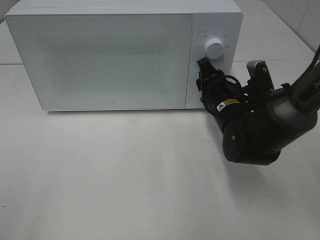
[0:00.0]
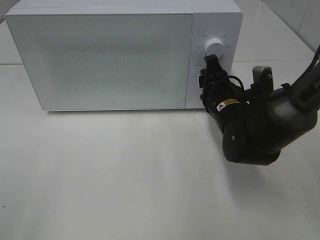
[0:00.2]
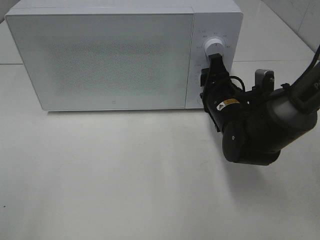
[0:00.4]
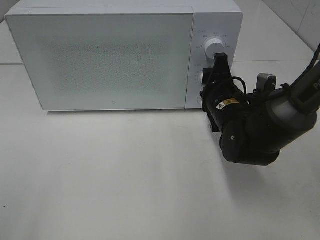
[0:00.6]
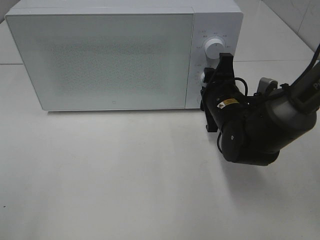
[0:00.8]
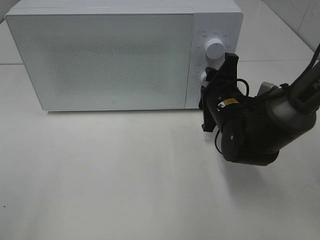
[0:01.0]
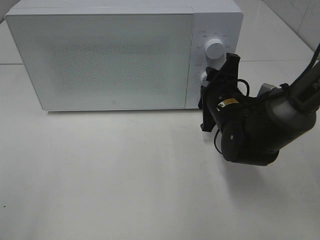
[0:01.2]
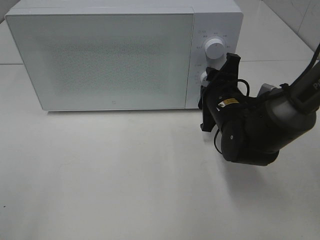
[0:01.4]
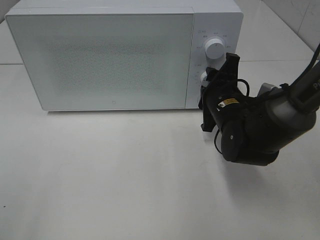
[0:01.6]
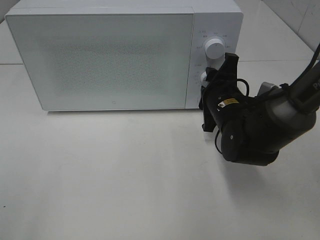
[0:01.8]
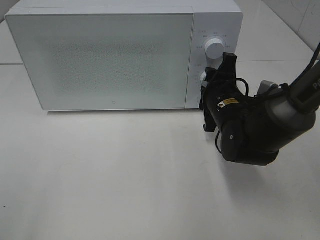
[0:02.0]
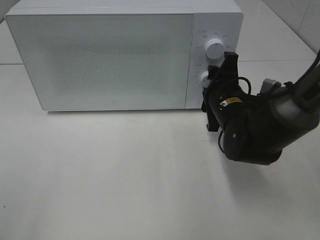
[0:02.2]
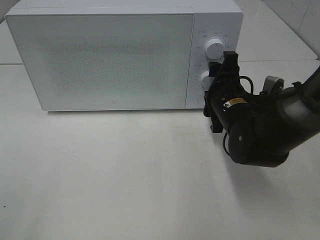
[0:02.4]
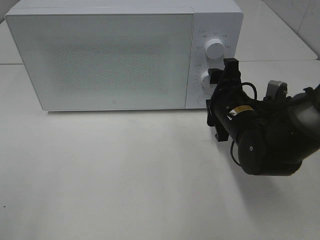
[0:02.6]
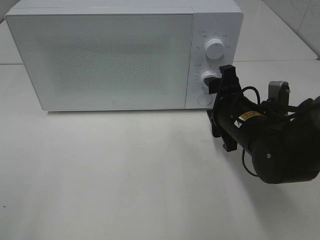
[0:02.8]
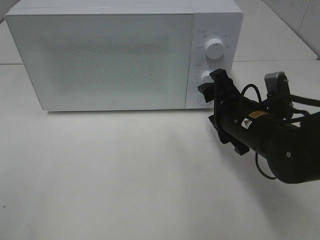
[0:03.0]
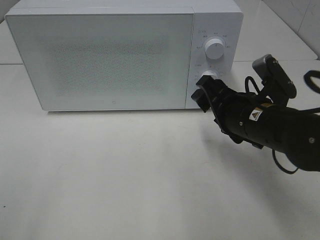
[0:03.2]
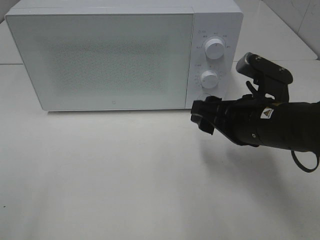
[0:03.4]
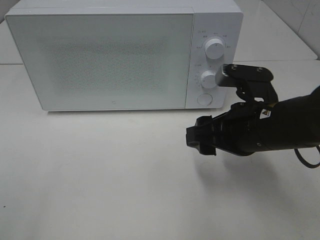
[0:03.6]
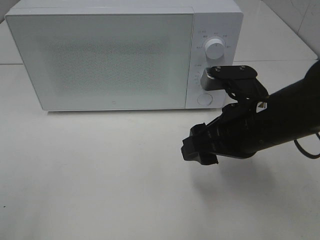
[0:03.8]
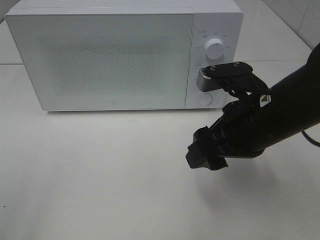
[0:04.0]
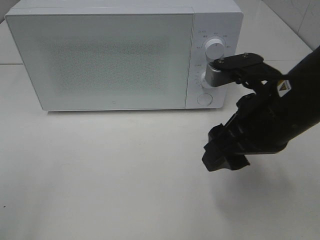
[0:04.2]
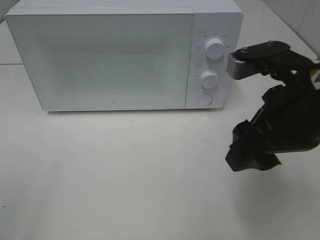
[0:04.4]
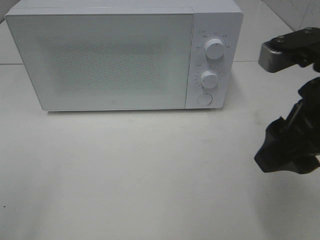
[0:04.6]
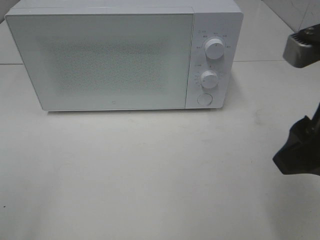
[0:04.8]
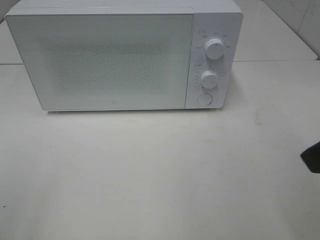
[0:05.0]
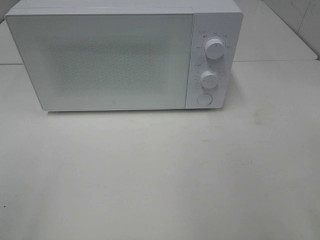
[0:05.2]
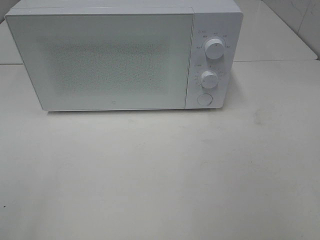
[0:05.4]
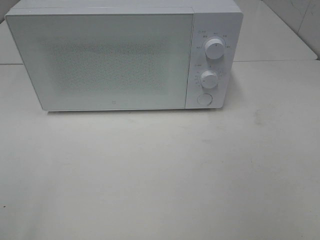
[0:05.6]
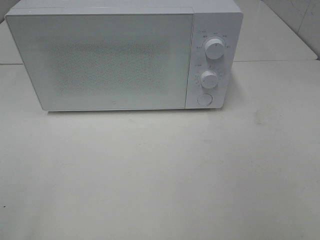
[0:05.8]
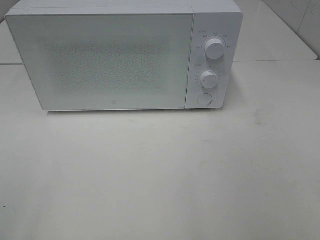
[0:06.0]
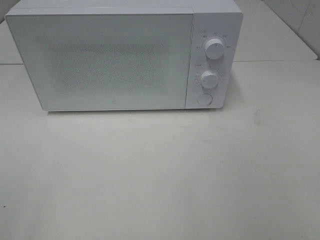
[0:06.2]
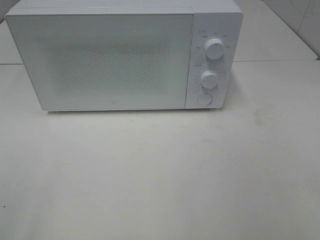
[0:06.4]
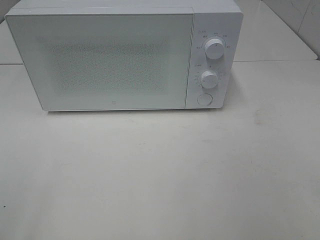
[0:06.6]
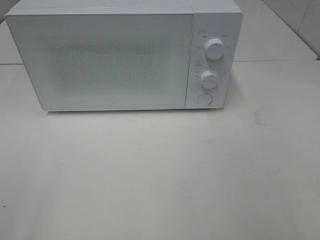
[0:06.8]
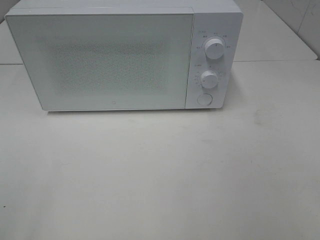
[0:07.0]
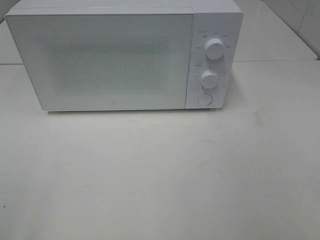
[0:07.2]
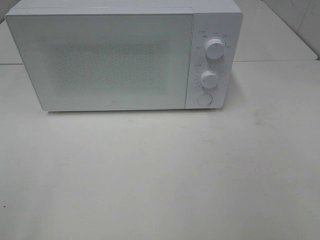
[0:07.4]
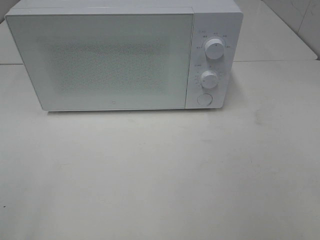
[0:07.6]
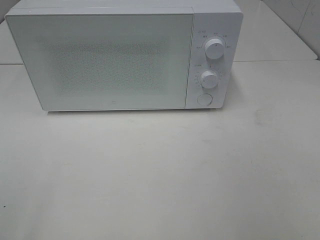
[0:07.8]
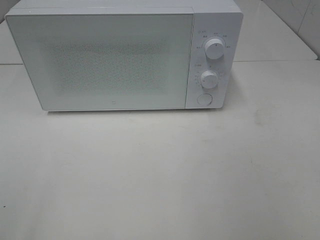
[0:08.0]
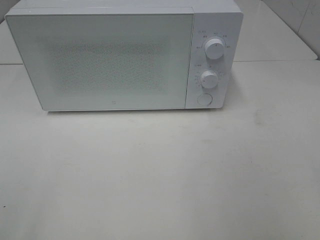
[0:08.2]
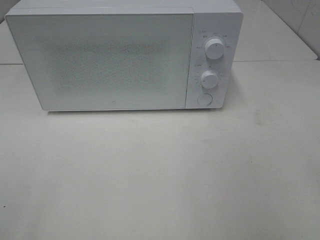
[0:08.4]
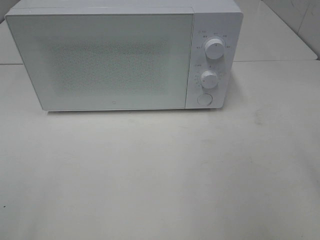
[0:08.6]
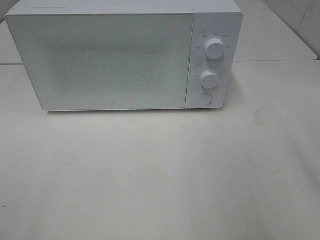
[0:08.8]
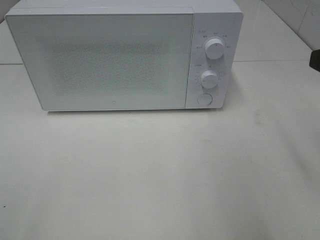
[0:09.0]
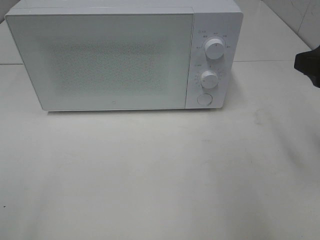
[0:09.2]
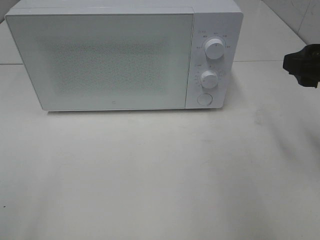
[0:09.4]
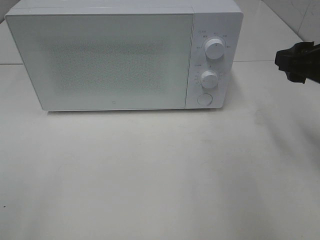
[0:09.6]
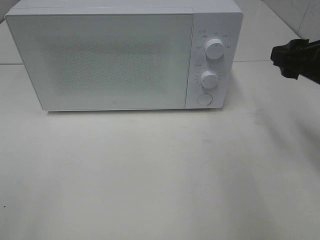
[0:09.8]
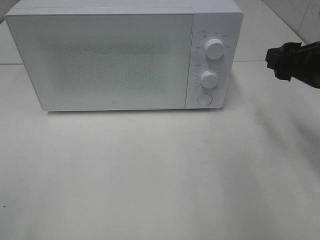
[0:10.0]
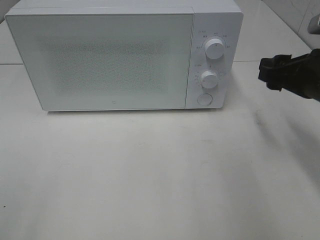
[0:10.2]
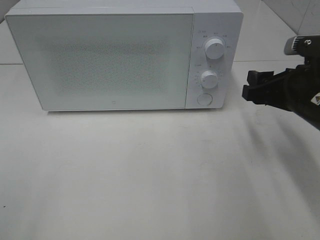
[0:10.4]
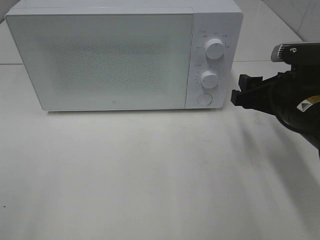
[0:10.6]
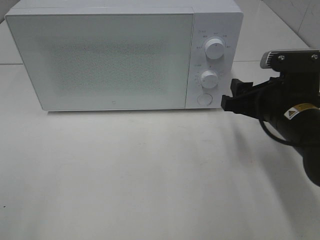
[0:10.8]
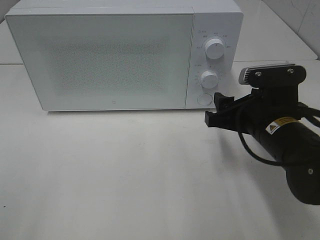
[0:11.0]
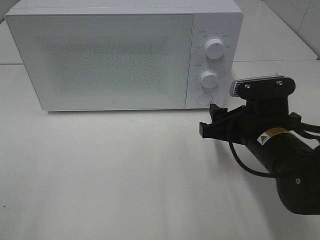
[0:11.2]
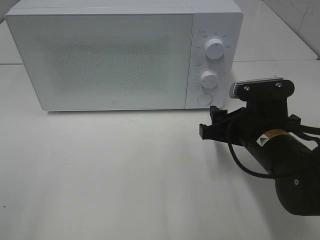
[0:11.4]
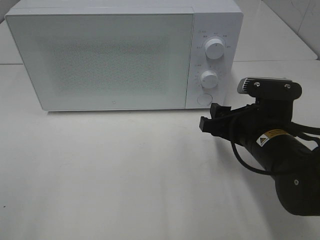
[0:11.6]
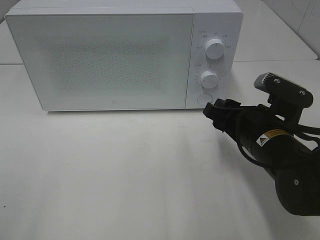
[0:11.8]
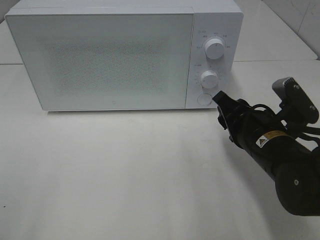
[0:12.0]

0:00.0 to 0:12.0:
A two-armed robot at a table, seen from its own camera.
Task of the whole recording: Heat the burger.
Step, 0:00.0 to 0:02.4: Right hand: twist timer button.
0:01.6 to 0:03.0: The right gripper travels backward by some 5 cm.
0:03.0 to 0:04.4: The right gripper travels upward and backward by about 15 cm.
0:04.4 to 0:06.0: The right gripper shifts roughly 20 cm backward and to the right.
0:06.0 to 0:07.6: Neither gripper changes place.
0:09.0 to 0:10.4: The right gripper is displaced downward and forward by approximately 15 cm.
0:10.4 to 0:12.0: The right gripper shifts some 10 cm to the left and downward.

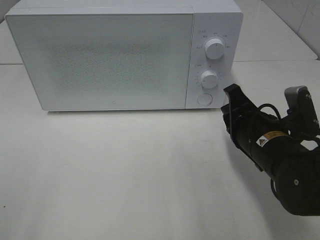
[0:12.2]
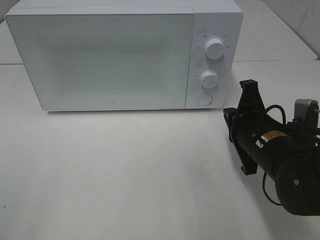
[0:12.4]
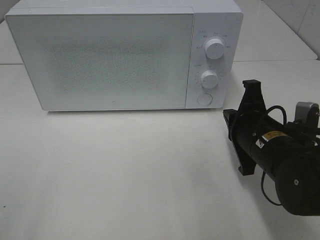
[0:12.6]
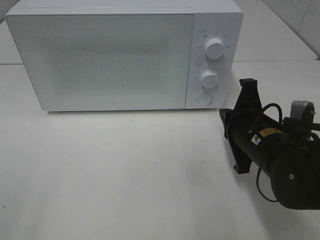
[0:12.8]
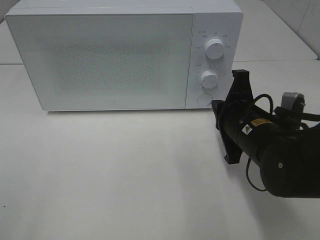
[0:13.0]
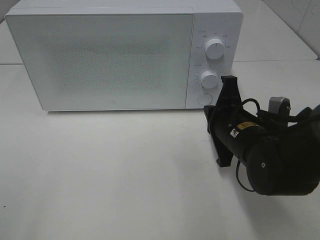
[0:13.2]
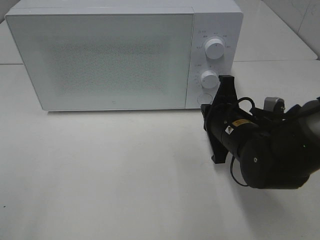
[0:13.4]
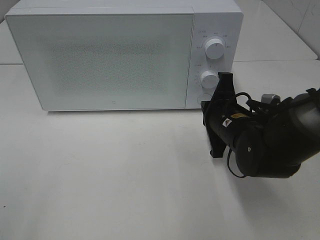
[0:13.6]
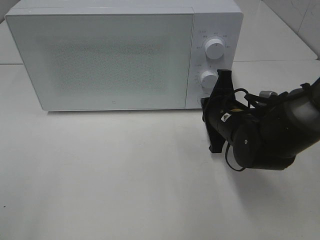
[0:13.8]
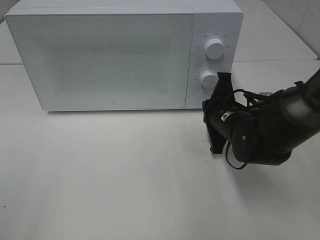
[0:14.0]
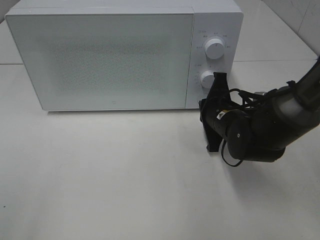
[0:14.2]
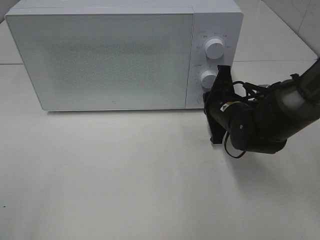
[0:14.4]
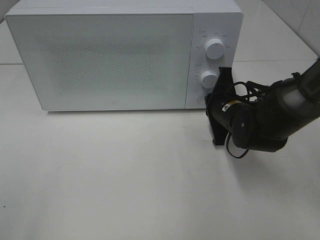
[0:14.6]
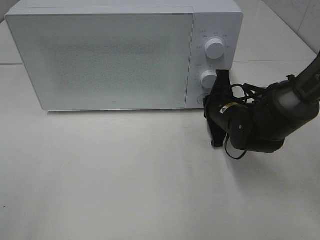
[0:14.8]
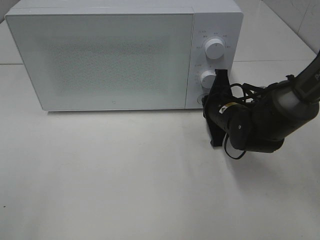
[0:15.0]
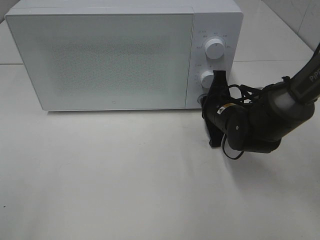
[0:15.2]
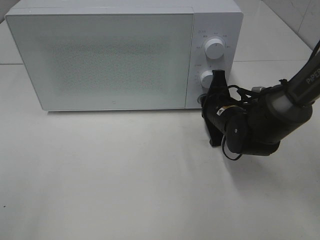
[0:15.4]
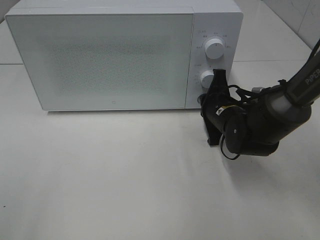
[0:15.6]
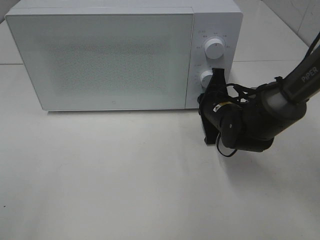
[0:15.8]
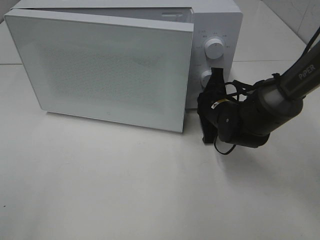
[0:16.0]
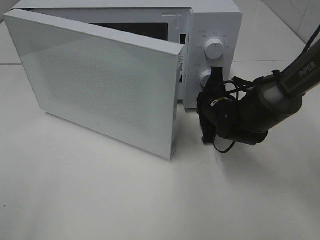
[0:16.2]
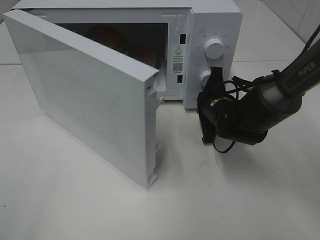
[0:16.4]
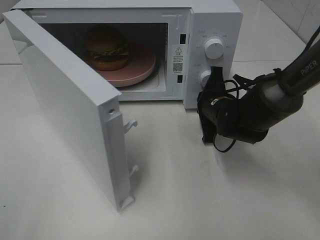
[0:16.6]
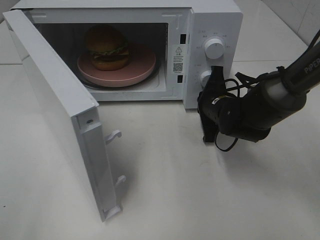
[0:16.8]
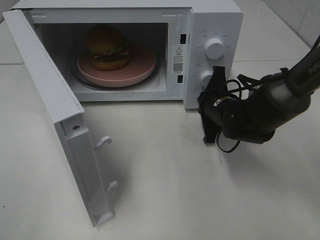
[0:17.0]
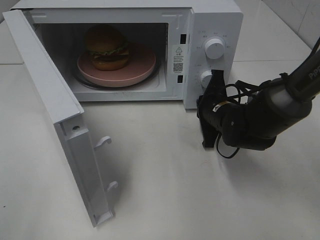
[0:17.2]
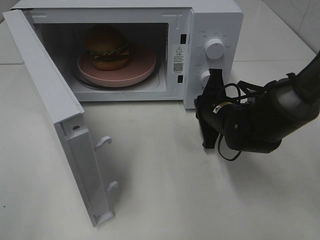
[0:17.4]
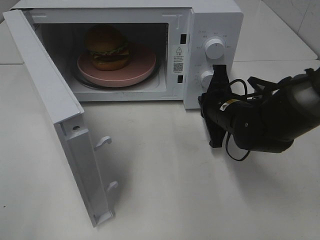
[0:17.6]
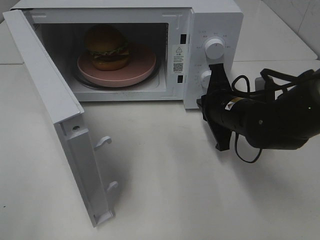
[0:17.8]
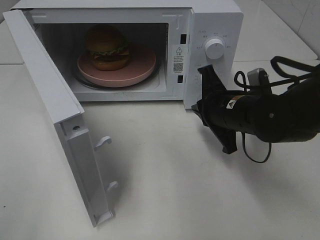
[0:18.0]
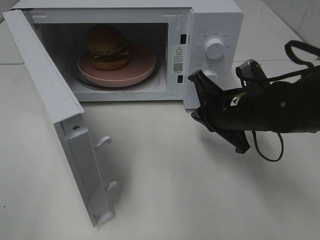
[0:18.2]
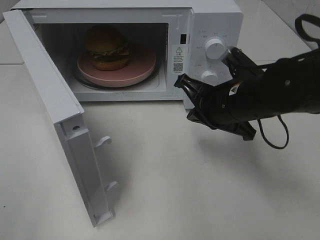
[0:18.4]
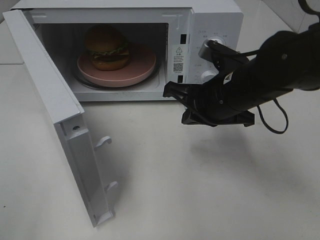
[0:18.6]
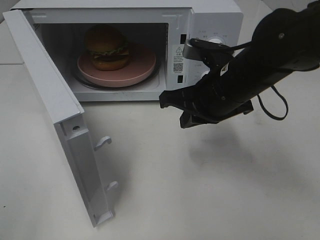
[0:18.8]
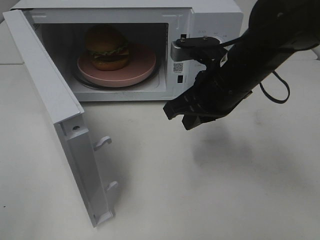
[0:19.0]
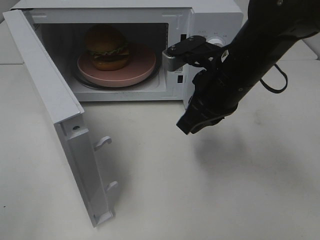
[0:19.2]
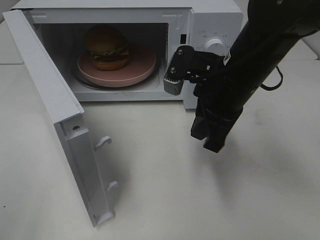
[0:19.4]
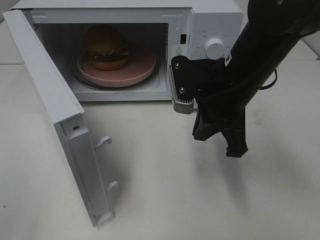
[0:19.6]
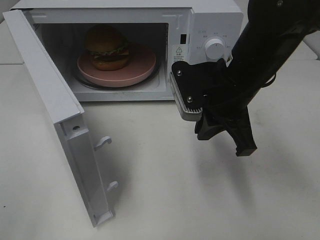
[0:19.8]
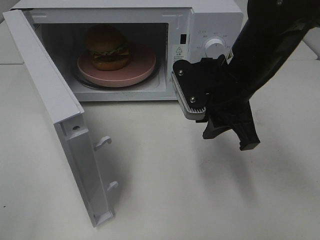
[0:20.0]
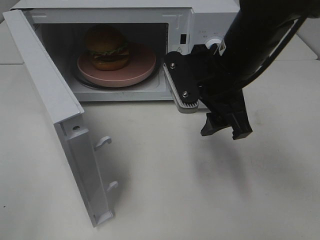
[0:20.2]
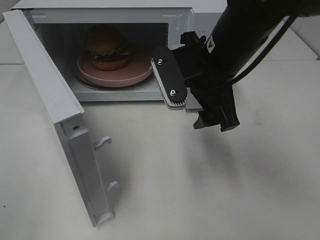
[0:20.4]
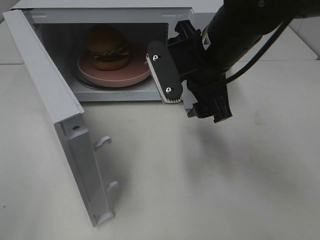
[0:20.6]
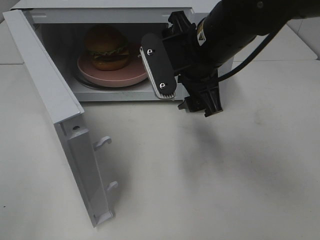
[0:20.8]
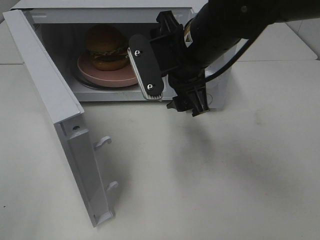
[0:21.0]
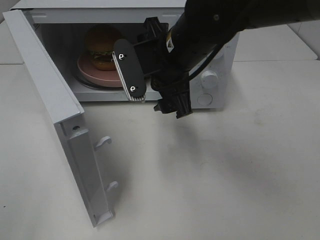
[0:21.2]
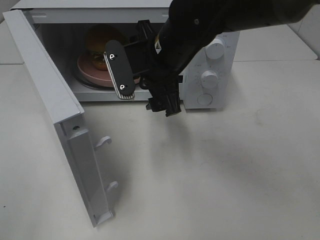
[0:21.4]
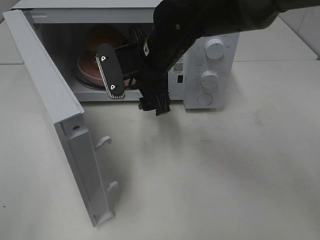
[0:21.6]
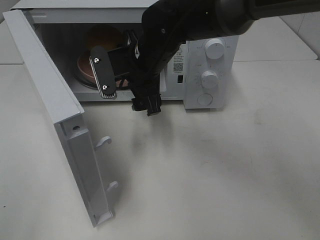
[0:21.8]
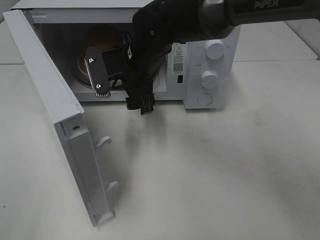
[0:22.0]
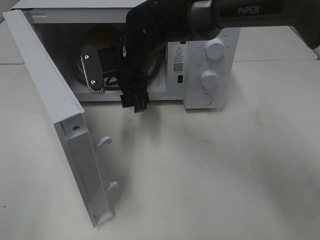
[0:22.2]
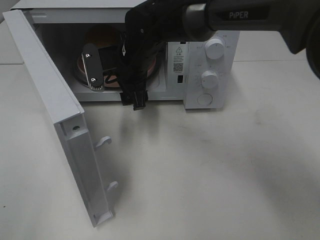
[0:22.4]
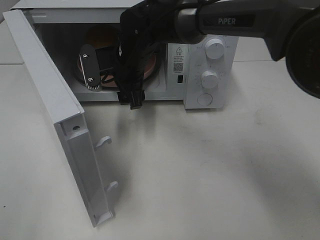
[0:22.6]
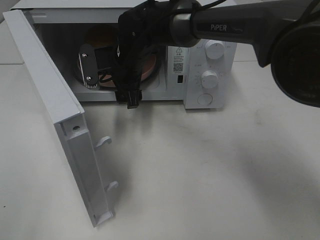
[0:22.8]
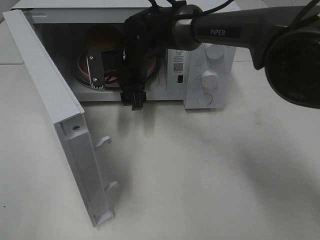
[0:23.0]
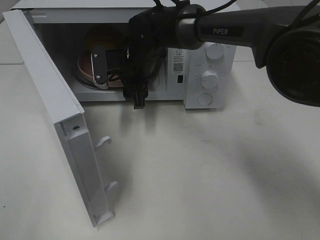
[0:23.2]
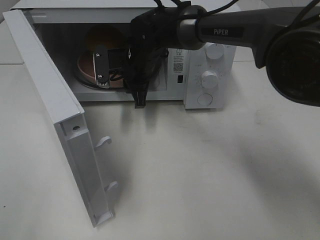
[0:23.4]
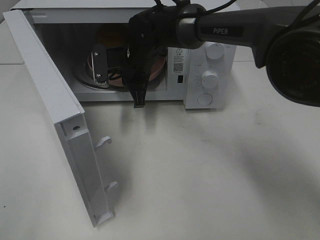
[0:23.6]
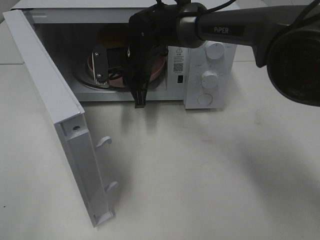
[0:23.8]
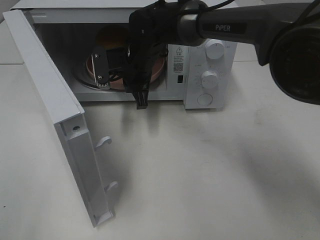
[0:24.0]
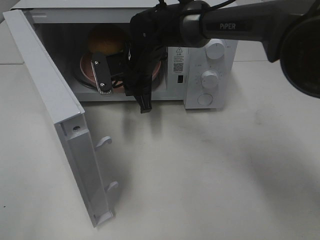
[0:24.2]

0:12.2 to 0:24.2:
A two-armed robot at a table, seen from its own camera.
Task of the whole recording: Heat the burger.
Step, 0:12.2 to 0:17.6: Right hand: press the switch.
Step, 0:17.8 to 0:23.6: Right hand: grab the plate with the hamburger.
0:12.2 to 0:13.8: The right gripper travels forward by about 5 cm.
0:13.8 to 0:15.2: The grippers make only small movements.
0:16.6 to 0:18.2: The right gripper goes some 10 cm backward and upward.
0:18.2 to 0:19.8: The right gripper shifts some 5 cm upward.
0:19.8 to 0:21.2: The right gripper shifts some 10 cm to the left, and opens up.
0:21.2 to 0:22.6: The right gripper is displaced forward, to the left and downward by roughly 15 cm.
0:22.6 to 0:24.2: The right gripper closes its fingers.
